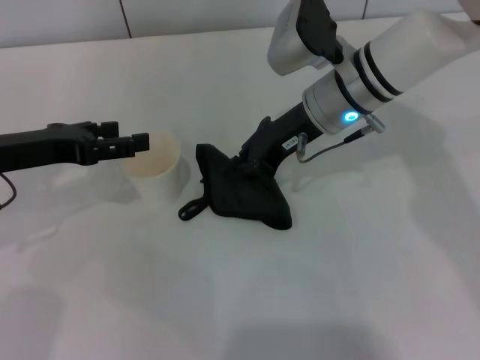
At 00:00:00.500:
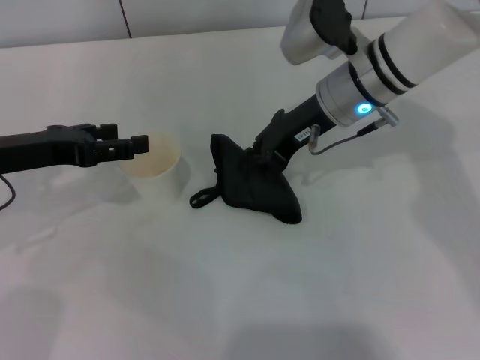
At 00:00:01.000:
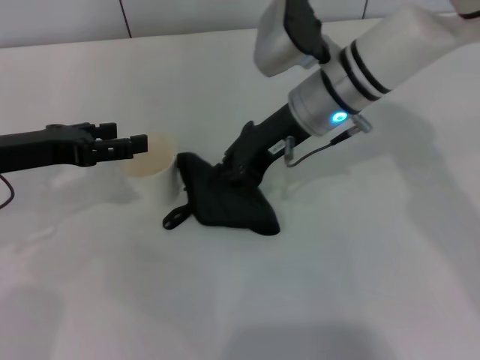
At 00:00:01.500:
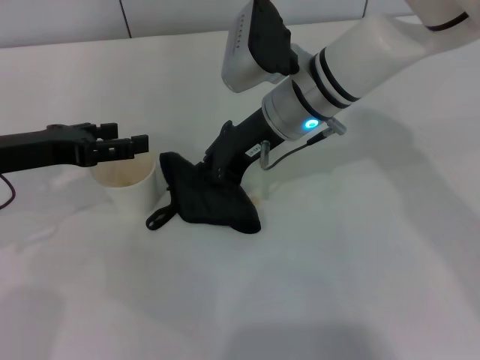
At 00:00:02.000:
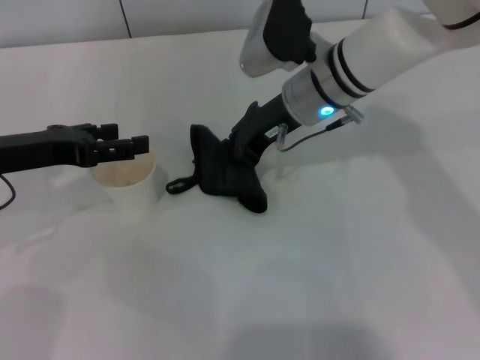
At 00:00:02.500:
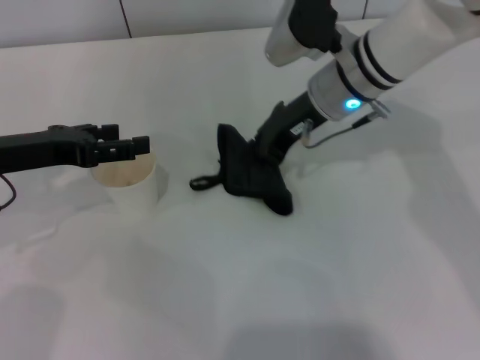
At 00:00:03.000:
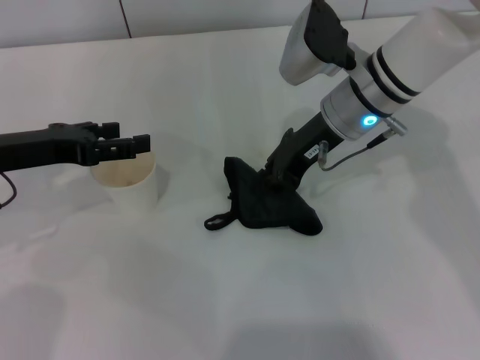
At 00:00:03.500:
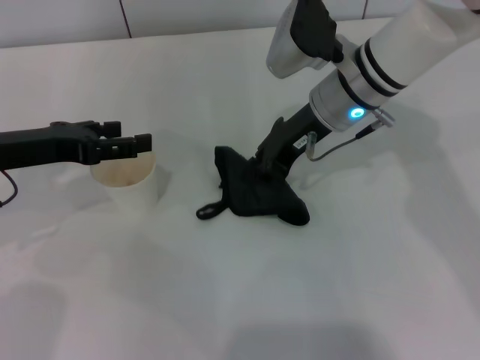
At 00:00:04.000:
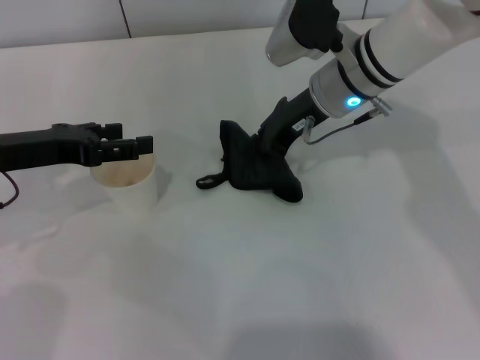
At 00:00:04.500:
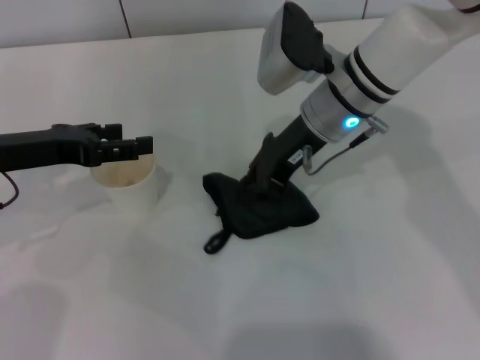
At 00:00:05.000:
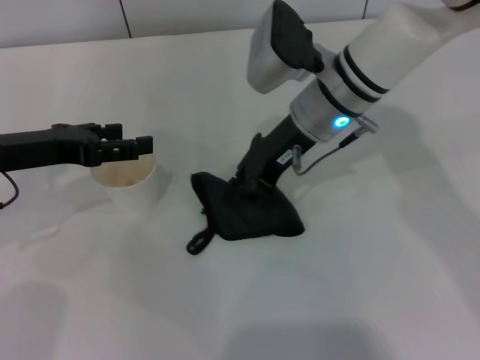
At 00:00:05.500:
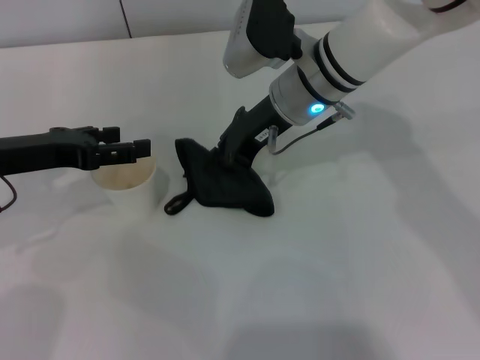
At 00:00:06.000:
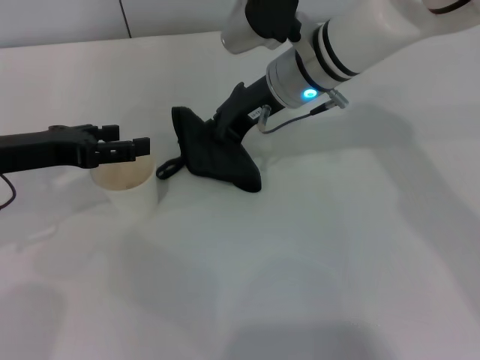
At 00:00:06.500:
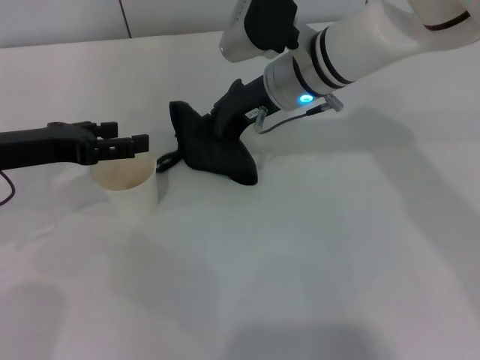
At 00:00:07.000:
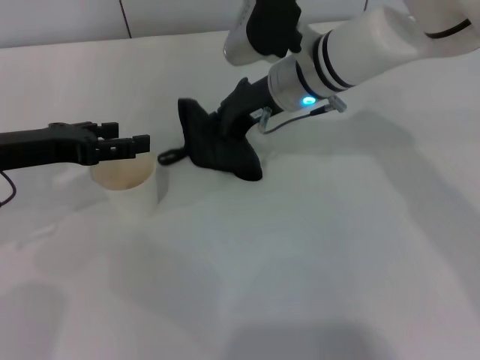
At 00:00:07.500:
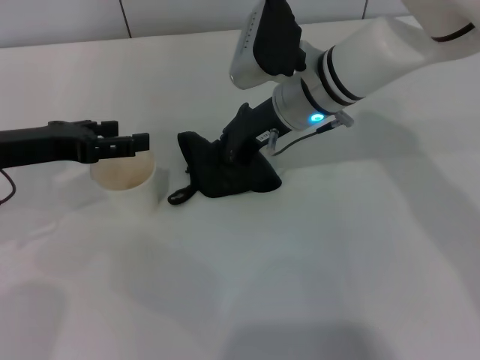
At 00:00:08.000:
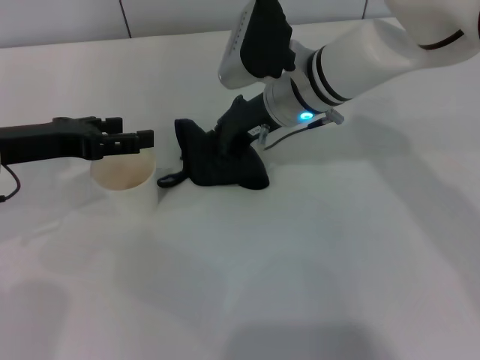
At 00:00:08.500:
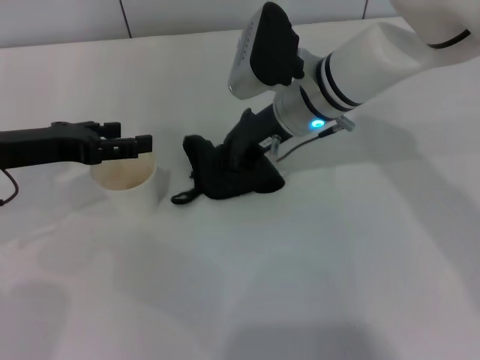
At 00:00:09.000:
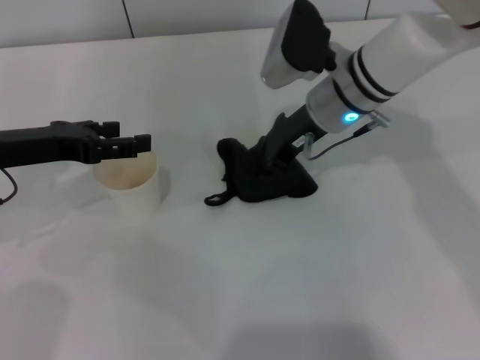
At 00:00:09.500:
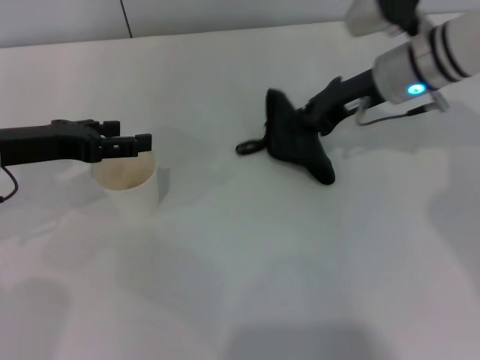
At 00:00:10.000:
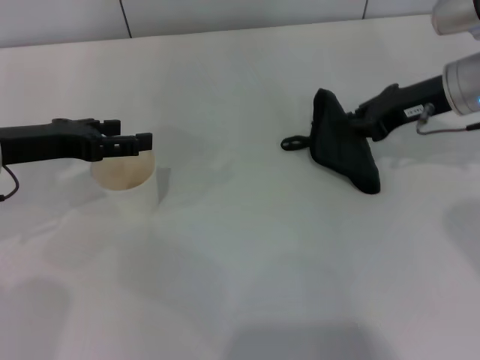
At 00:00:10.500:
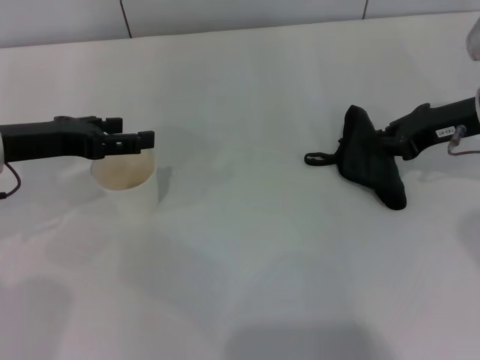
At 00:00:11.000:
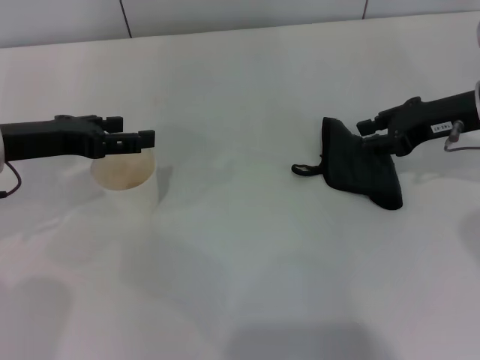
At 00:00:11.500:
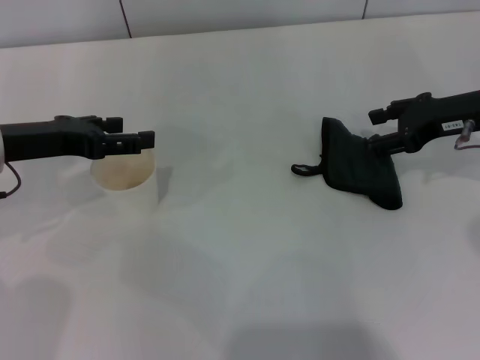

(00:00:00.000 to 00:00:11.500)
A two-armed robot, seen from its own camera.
Step, 00:00:00.000 - 00:00:10.500: Wipe the stains off the table with the right gripper.
00:00:00.000 - 00:00:07.500: The grippers make only small movements.
00:00:07.500 - 00:00:09.500: The right gripper shifts roughly 10 cm to the right.
00:00:09.500 - 00:00:11.500: The right gripper shifts roughly 10 cm to the right and backward, and opens up.

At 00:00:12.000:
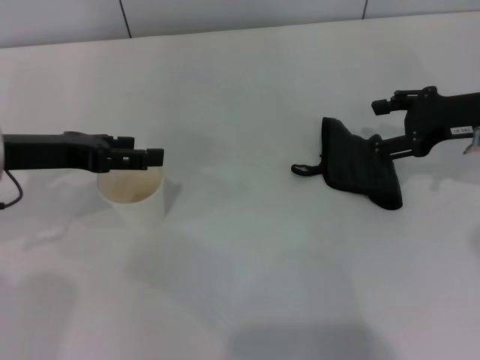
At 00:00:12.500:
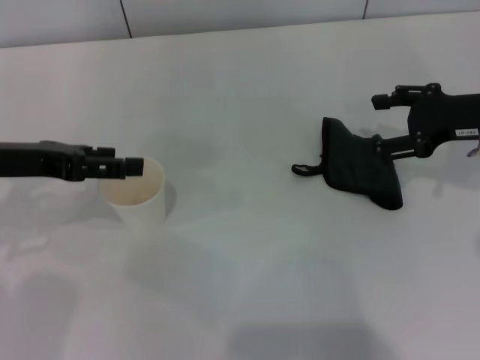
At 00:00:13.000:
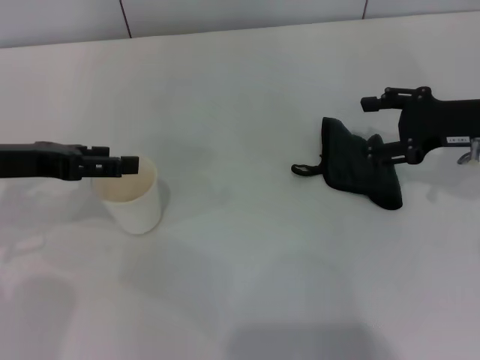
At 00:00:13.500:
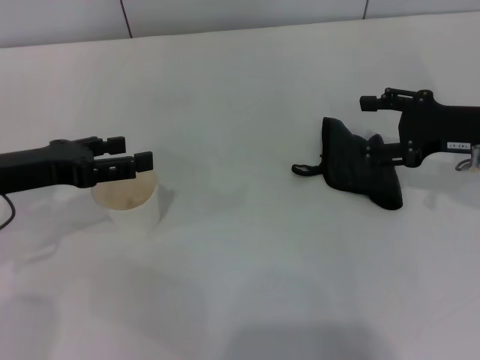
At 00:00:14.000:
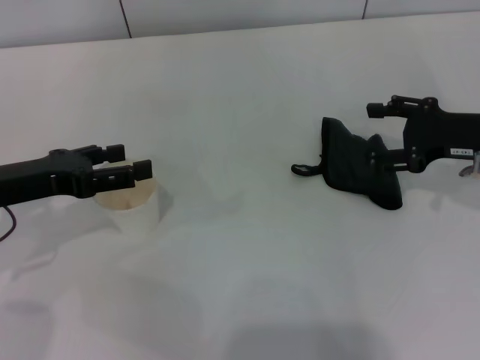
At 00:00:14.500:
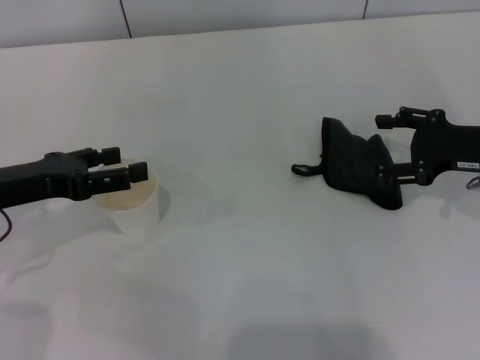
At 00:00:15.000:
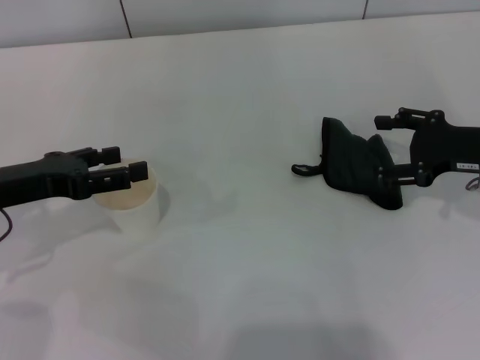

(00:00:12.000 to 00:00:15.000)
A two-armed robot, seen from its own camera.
00:00:12.000 - 00:00:15.000: There are only small adjustments of the grippers.

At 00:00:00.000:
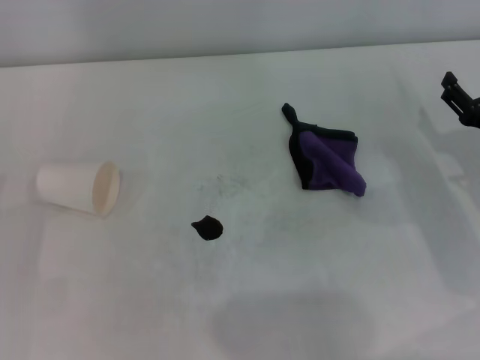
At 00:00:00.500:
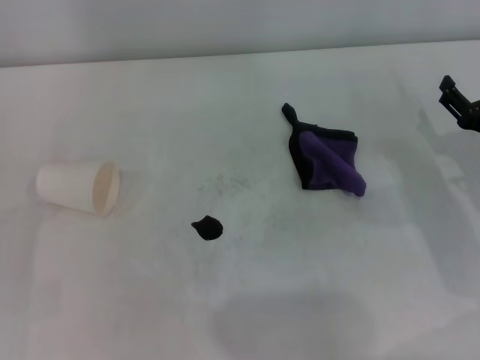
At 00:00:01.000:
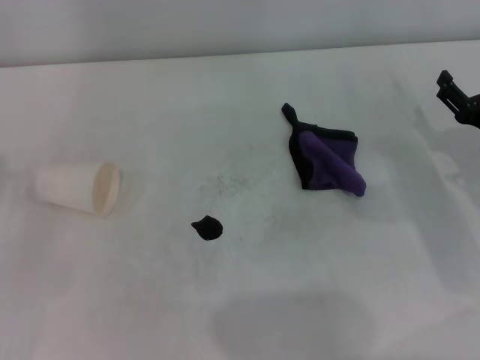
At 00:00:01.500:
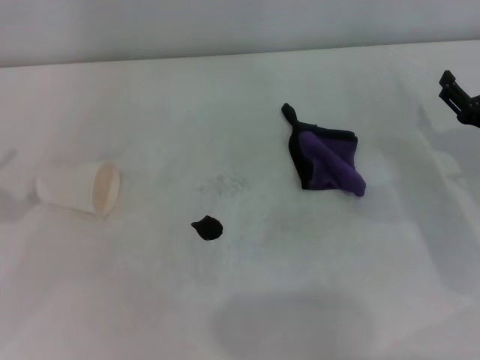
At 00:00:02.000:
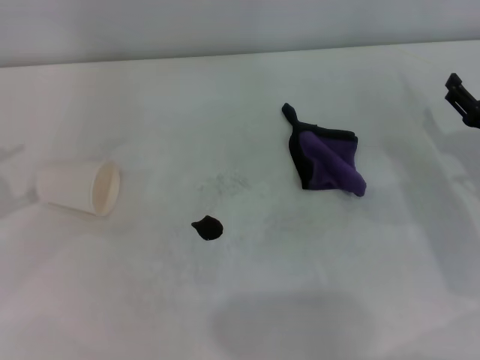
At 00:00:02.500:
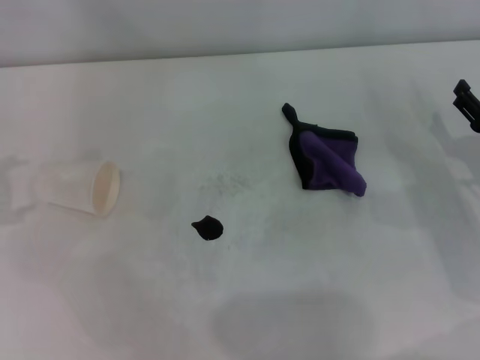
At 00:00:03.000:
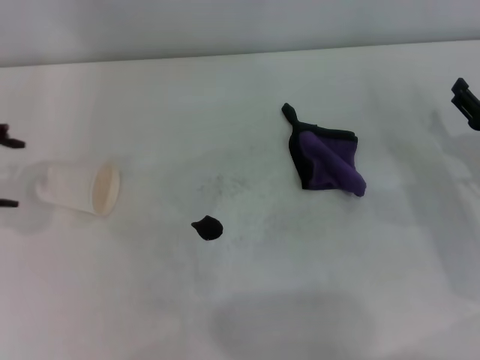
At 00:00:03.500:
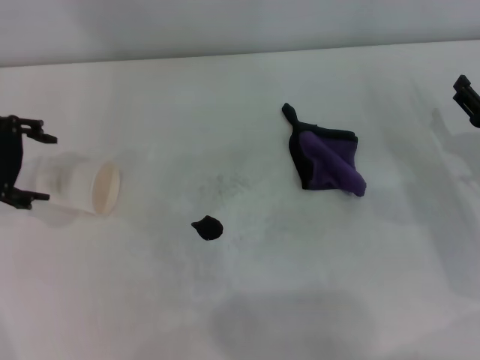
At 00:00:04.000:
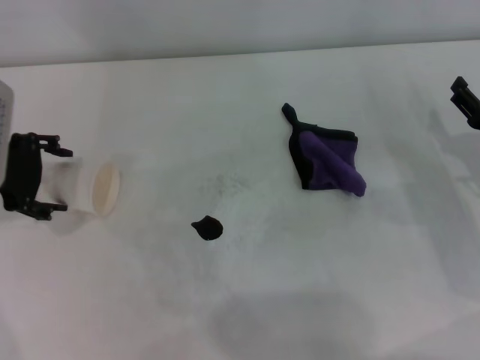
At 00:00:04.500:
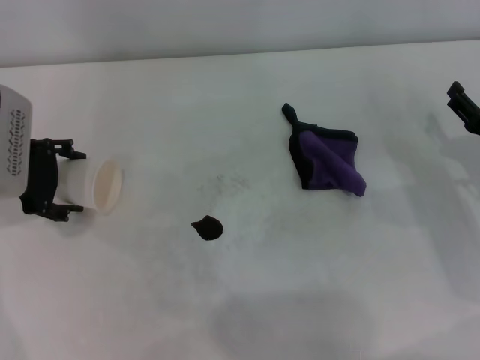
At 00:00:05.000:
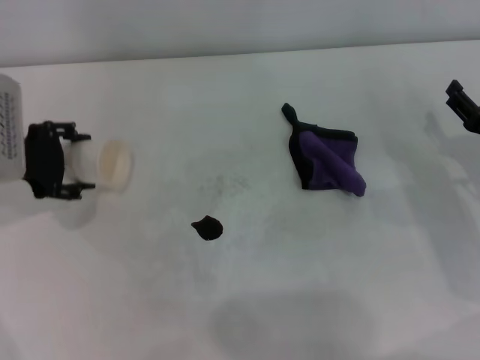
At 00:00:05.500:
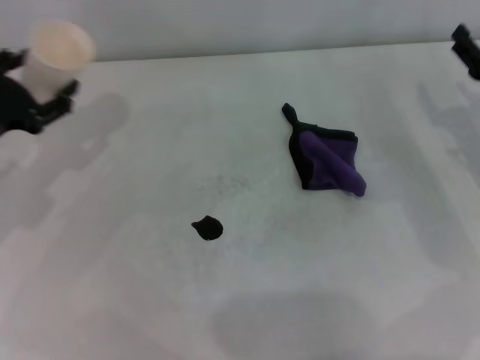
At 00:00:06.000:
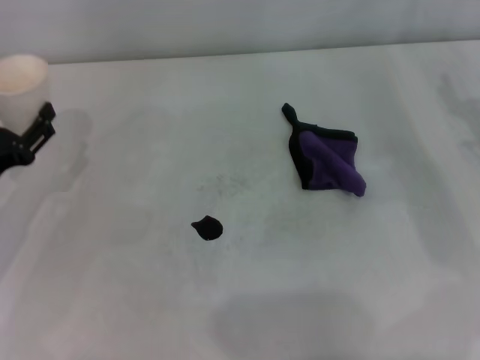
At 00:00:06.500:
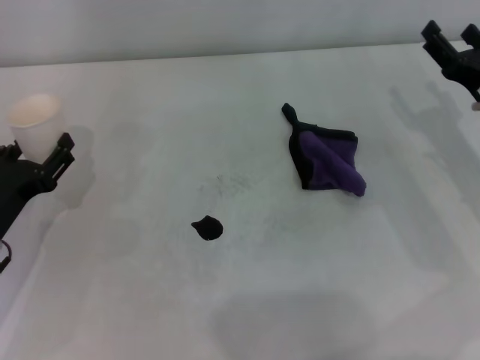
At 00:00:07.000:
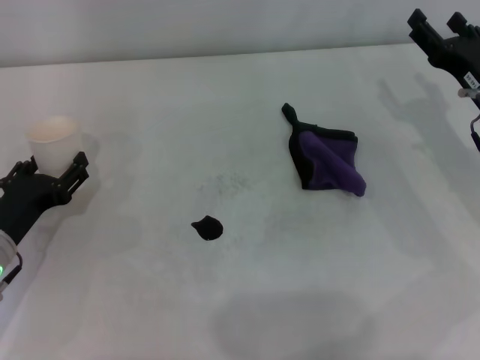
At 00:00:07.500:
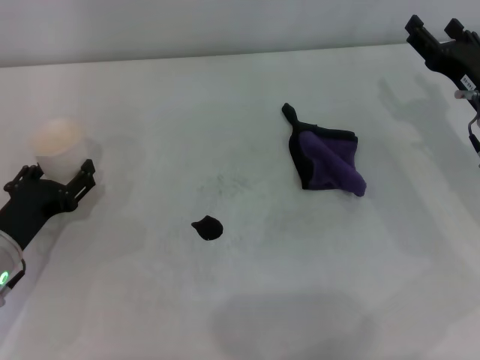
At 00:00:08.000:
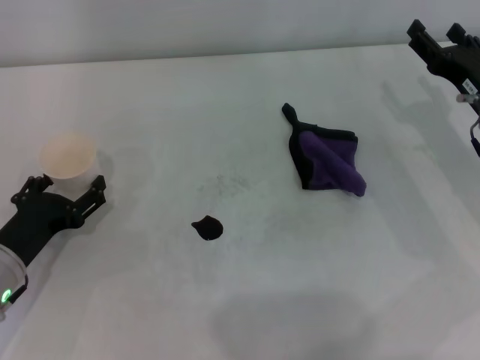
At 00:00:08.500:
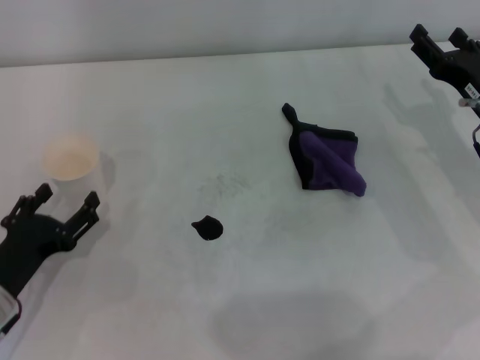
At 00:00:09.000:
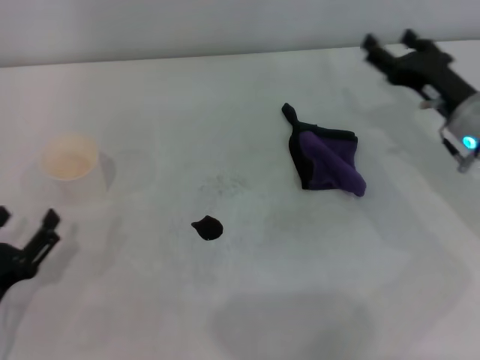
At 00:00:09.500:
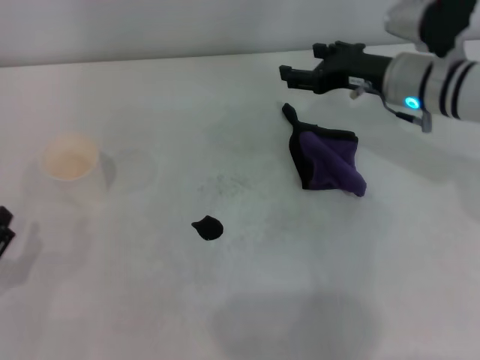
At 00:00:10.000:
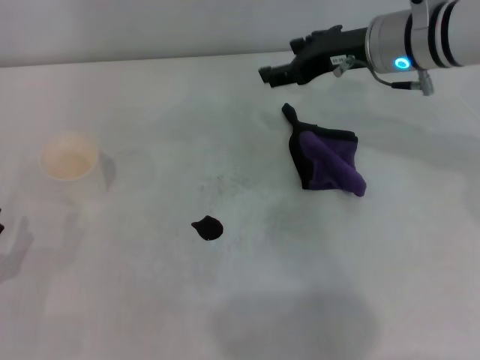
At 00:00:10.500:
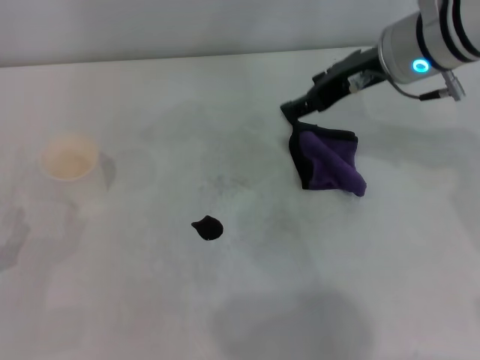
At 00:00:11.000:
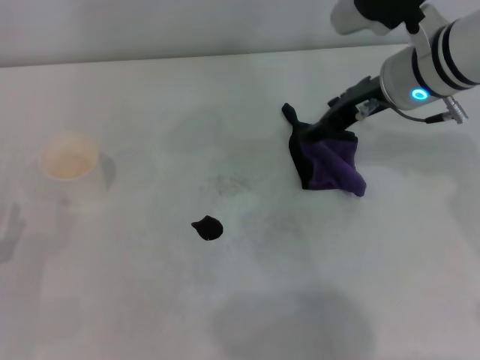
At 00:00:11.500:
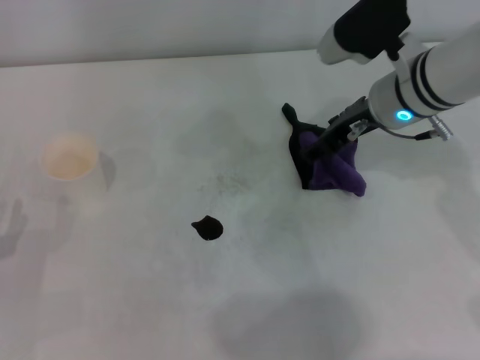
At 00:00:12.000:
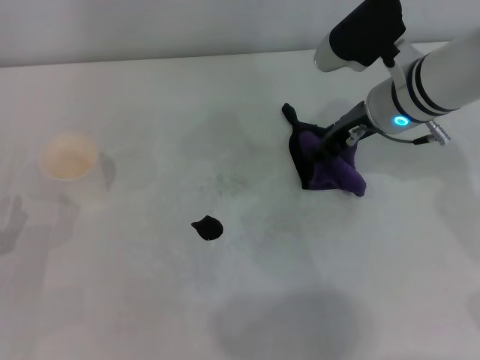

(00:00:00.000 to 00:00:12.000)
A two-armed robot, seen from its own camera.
Step, 00:00:00.000 - 00:00:04.500: Grasp the paper cup with the left gripper.
Step, 00:00:05.000 - 00:00:08.000: Stand the paper cup upright with the left gripper.
00:00:02.000 - 00:00:04.000: The left gripper is displaced to the right and forward by roughly 15 cm.
00:00:04.000 - 00:00:06.000: The right gripper moves approximately 5 cm; the left gripper goes approximately 10 cm downward and backward.
00:00:06.000 - 00:00:08.000: The left gripper goes approximately 5 cm downward.
00:00:08.000 - 00:00:10.000: The right gripper moves to the left, upward and forward, some 15 cm; the left gripper shifts some 10 cm backward and to the left.
